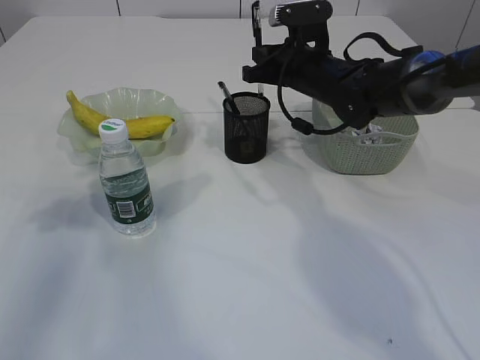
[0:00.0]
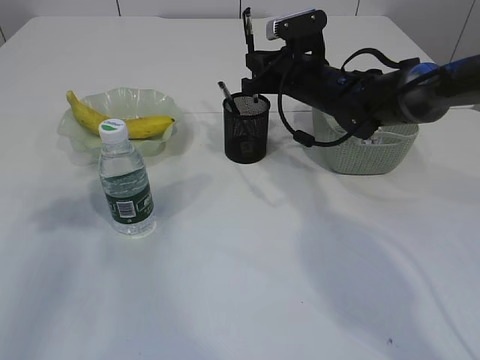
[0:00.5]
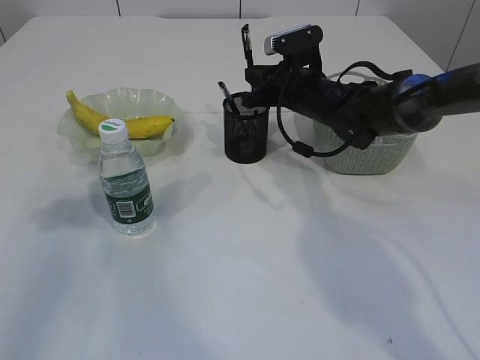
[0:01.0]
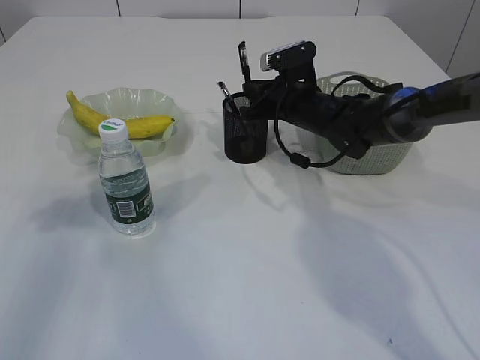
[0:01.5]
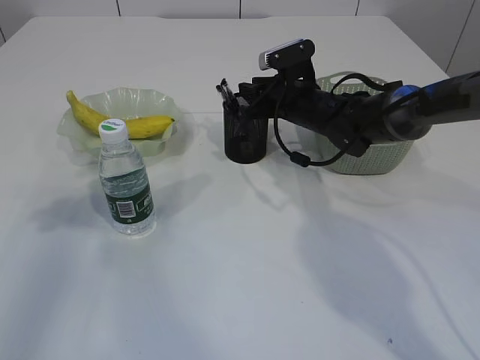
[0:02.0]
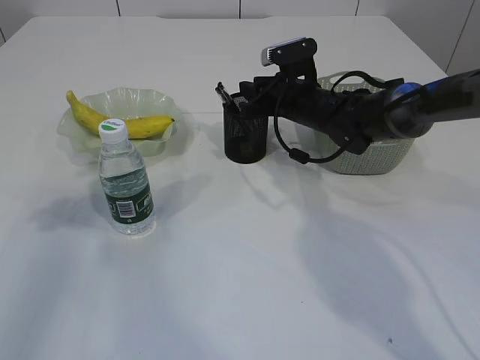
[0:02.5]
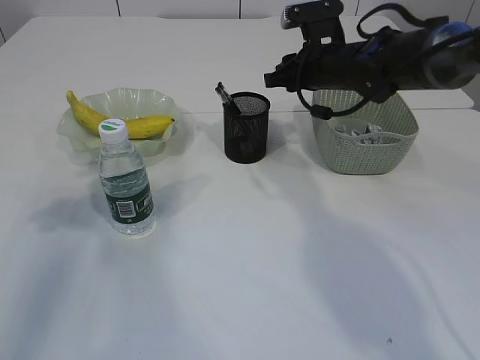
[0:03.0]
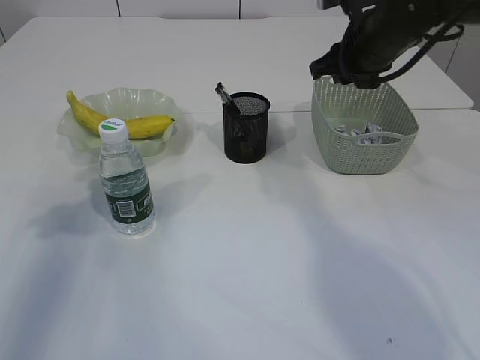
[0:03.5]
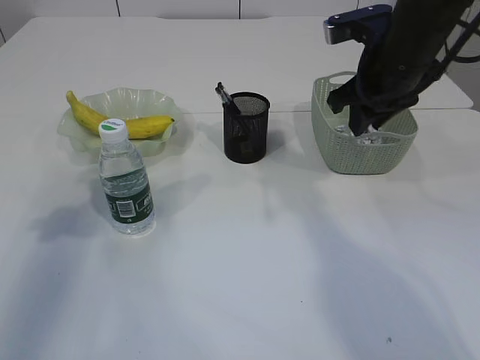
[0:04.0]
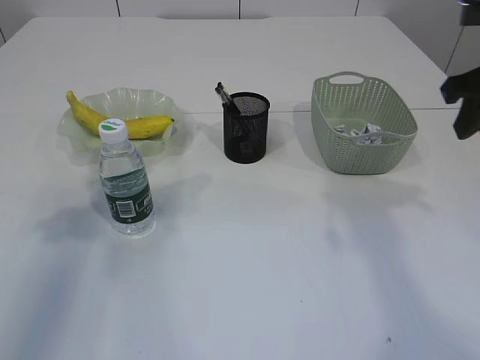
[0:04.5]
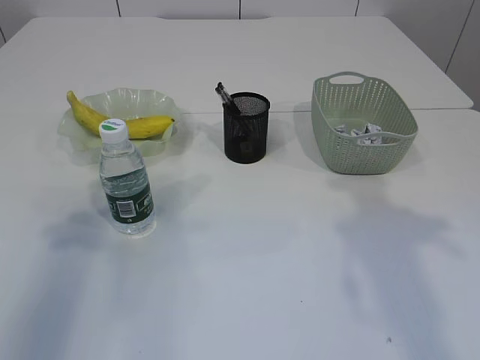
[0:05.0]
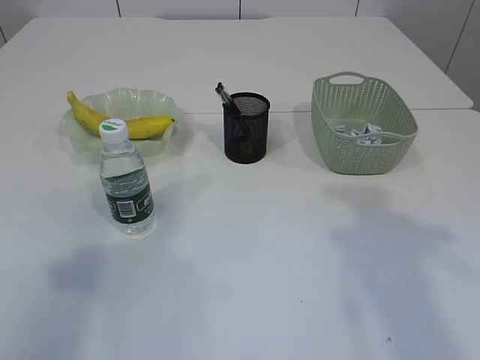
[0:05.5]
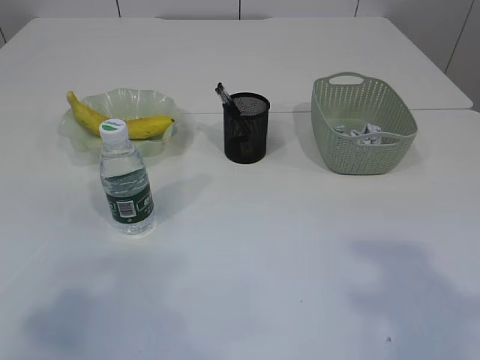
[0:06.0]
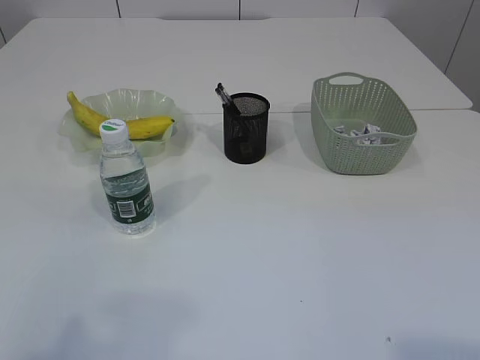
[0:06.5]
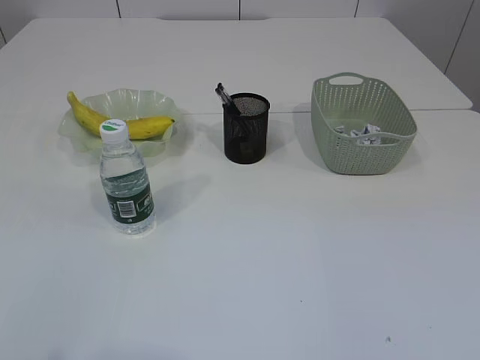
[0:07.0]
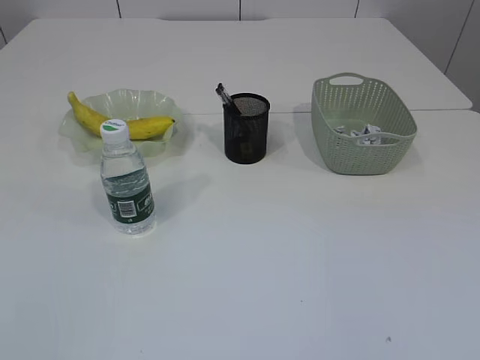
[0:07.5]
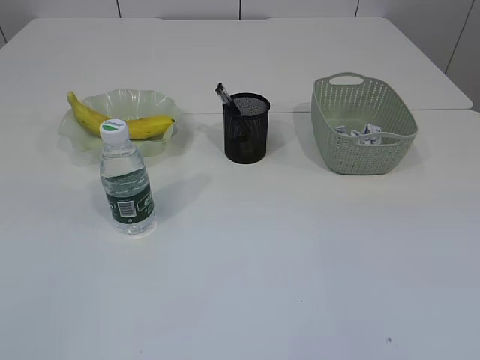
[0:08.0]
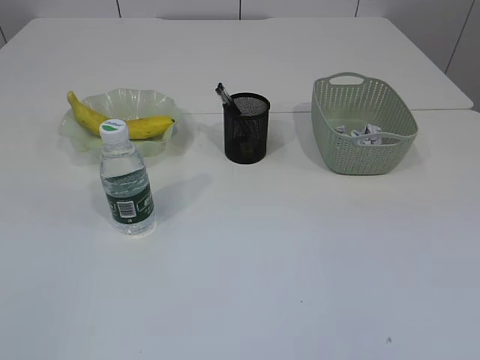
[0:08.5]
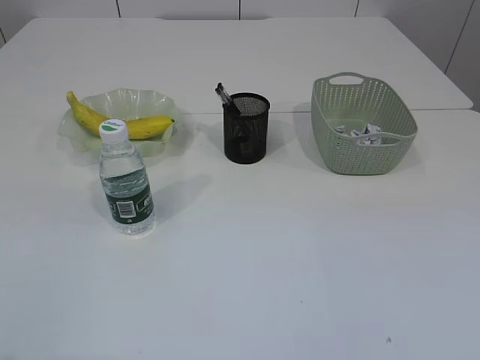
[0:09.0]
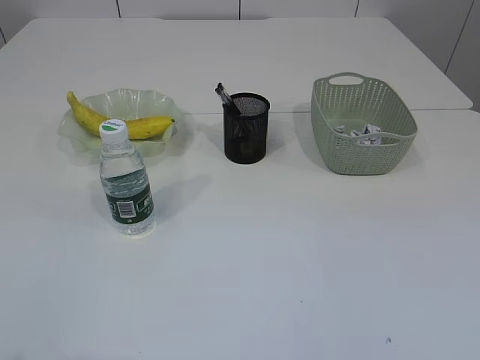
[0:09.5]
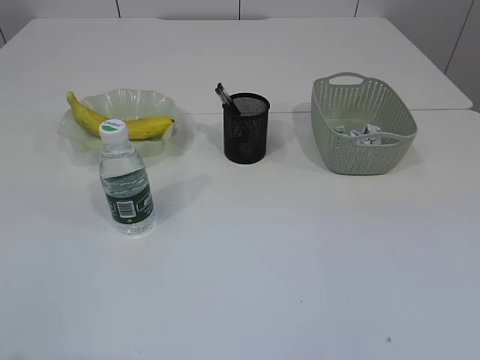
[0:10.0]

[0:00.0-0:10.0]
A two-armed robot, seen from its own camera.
Step, 0:00.0 to 0:03.0: Place the pen into the pen holder.
0:00.0 to 0:02.0: The right gripper moves downward, some 5 cm, and opens.
0:02.0 to 0:04.0: The right gripper heads upward, backward and to the right, covering about 20 cm.
0:04.0 to 0:06.0: The grippers both shift backward by about 25 cm.
0:06.0 to 0:08.0: The left gripper travels backward by roughly 10 cm.

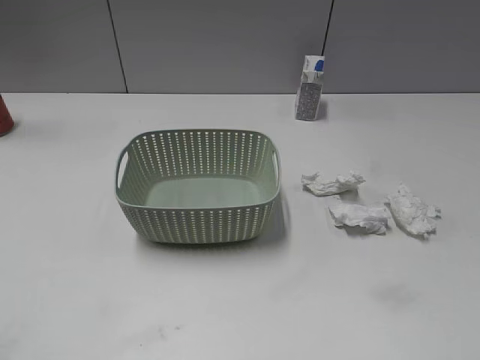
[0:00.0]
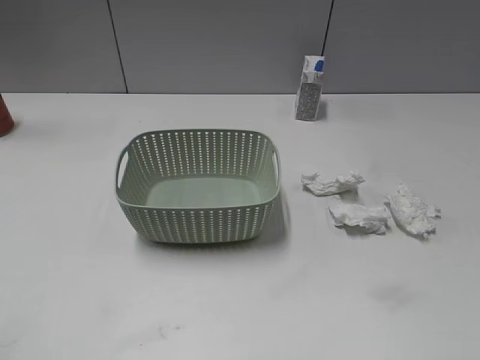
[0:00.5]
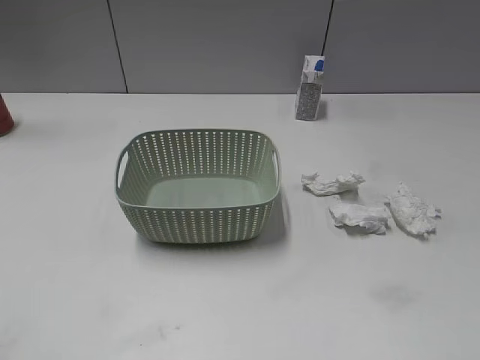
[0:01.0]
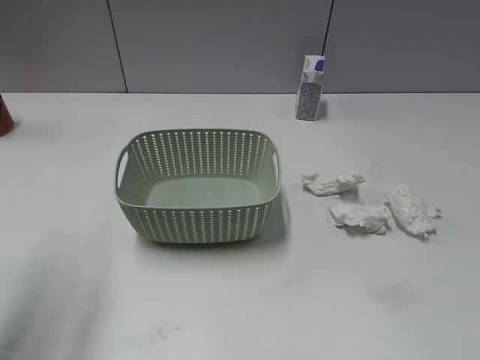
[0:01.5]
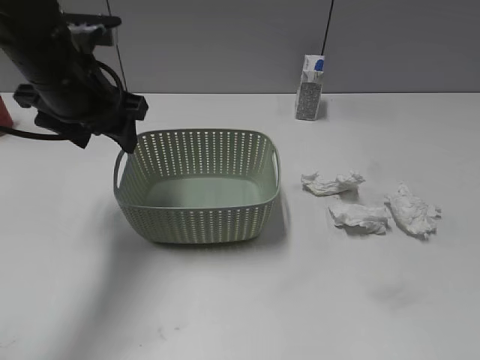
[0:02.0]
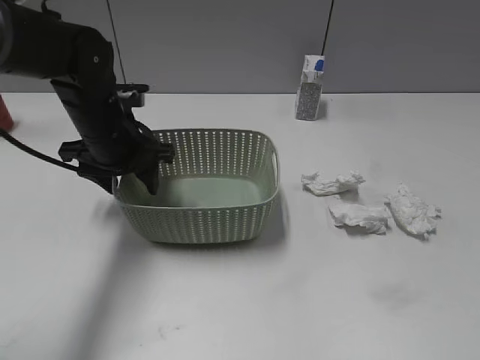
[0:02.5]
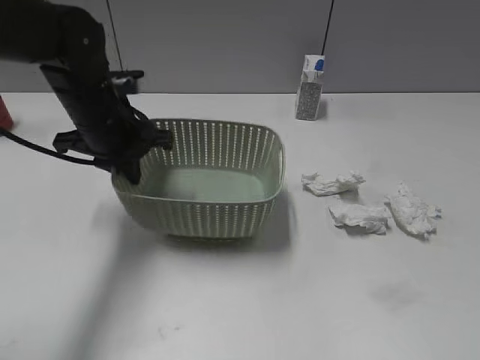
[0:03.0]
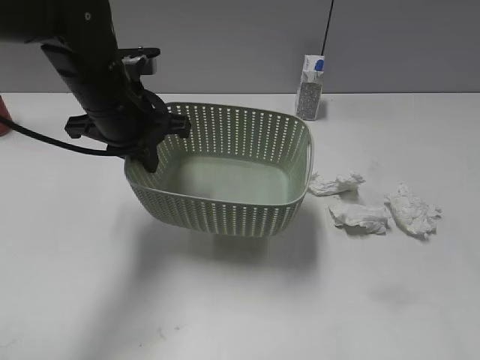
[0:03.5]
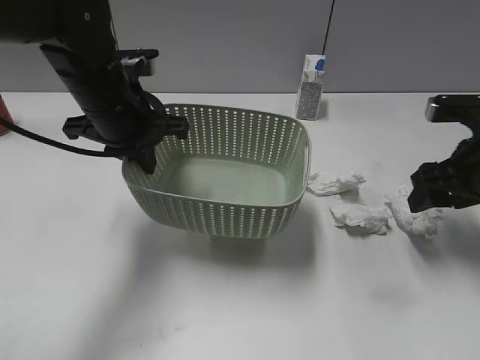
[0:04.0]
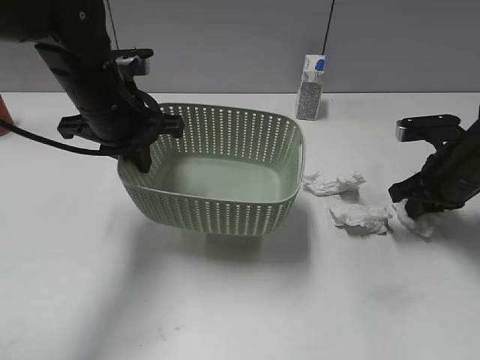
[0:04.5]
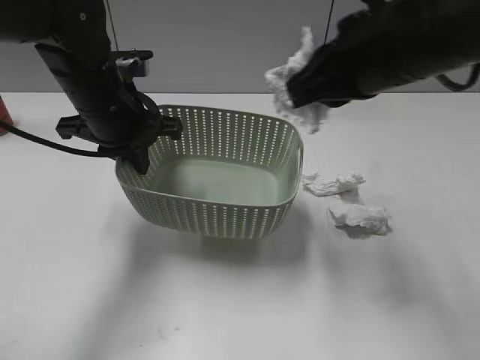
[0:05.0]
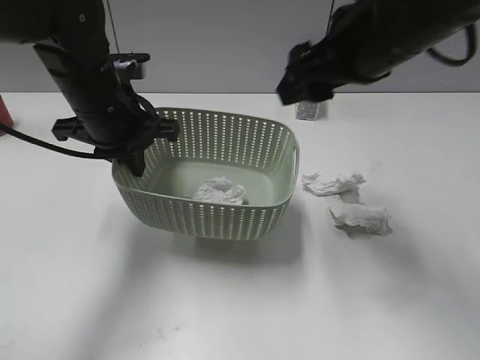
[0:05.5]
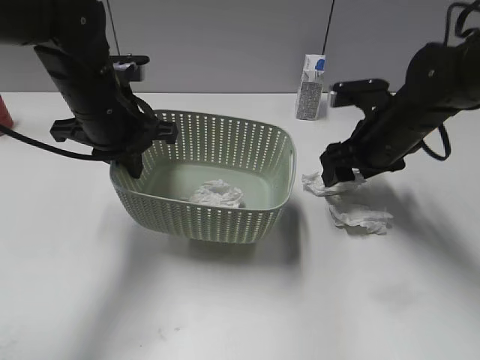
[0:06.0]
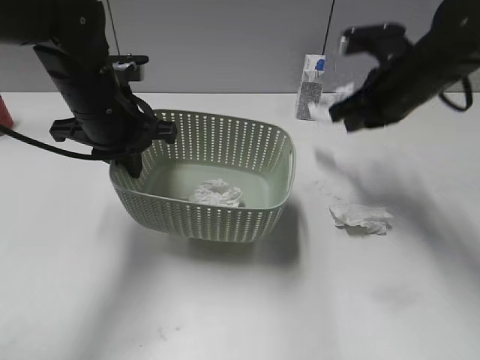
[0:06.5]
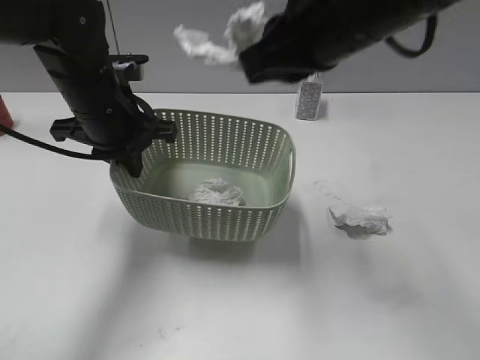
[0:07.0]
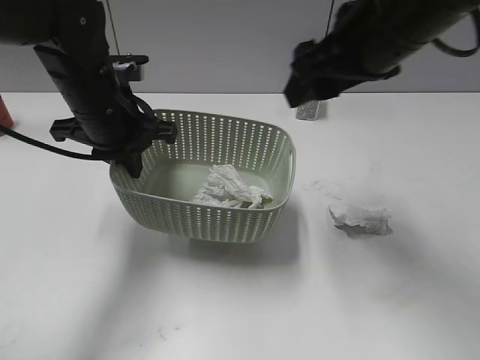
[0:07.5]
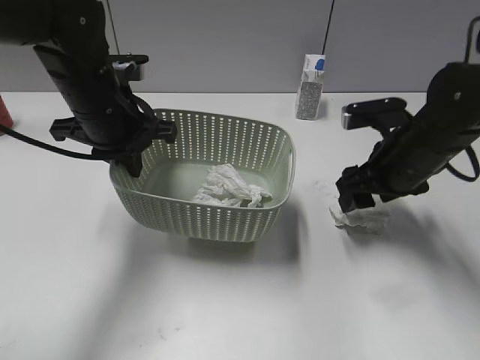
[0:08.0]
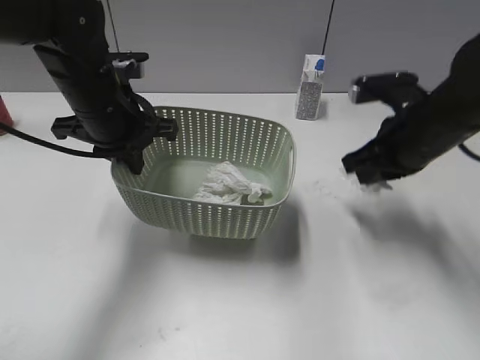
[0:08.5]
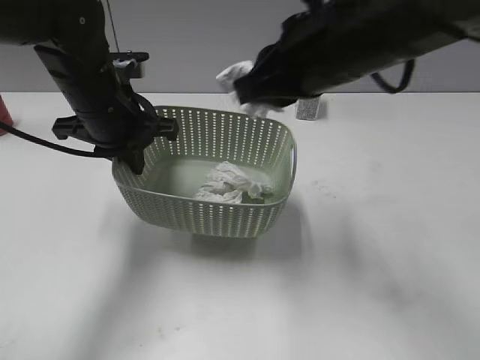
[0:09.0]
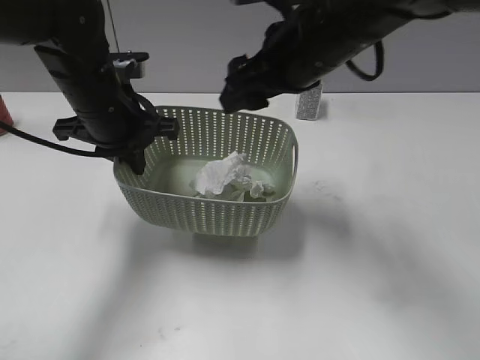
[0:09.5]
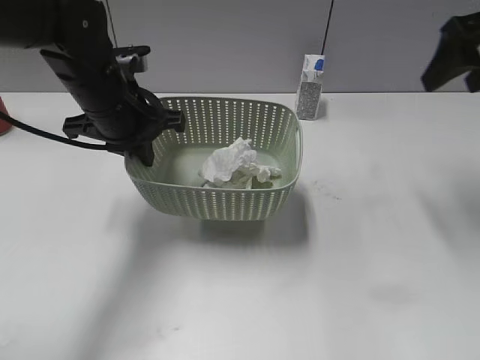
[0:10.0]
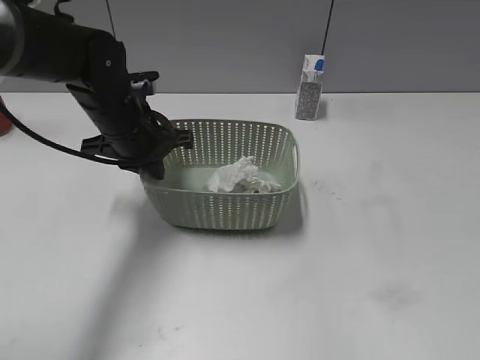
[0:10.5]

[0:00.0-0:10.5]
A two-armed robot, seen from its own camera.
Step, 0:01.5 to 0:03.0: Grasp the basket with left gripper.
Step, 0:03.5 to 0:04.5: Grasp the waste paper with right gripper.
Step, 0:05.5 to 0:06.0: Grasp the waste paper with right gripper.
Step, 0:06.5 to 0:07.0: Place the waste paper in the basket with right gripper.
Step, 0:07.5 to 0:08.0: Grasp the waste paper with right gripper.
Step, 0:08.5 to 0:09.5: Place the waste paper in the basket with right gripper.
0:02.0 to 0:04.0: The right gripper shifts roughly 30 cm forward. The left gripper closes its fingers.
0:04.0 to 0:06.5: The right gripper swings up and down, approximately 20 cm each way, with 3 reversals, and closes.
0:06.5 to 0:08.5: The right gripper shifts some 5 cm backward, reaches approximately 15 cm upward, then returns, and opens and closes again.
0:08.5 to 0:10.5: The right gripper heads upward and to the right, covering some 25 cm, and opens up; the left gripper changes place by roughly 5 cm.

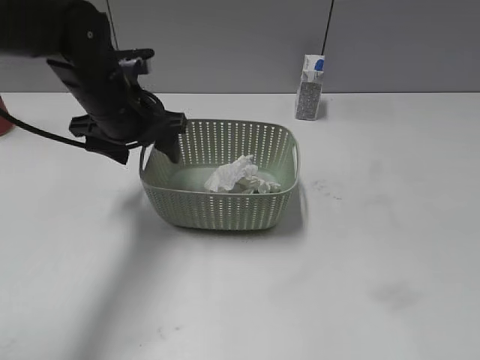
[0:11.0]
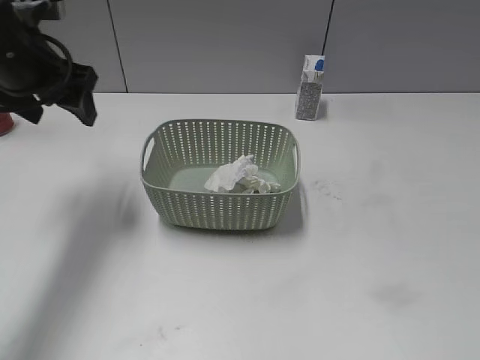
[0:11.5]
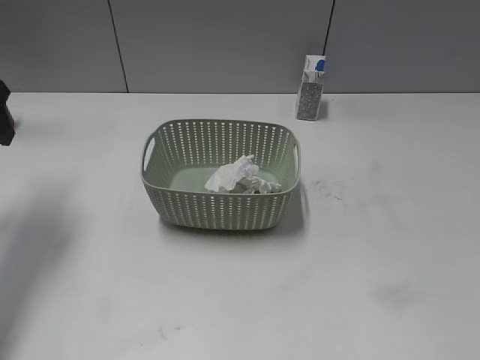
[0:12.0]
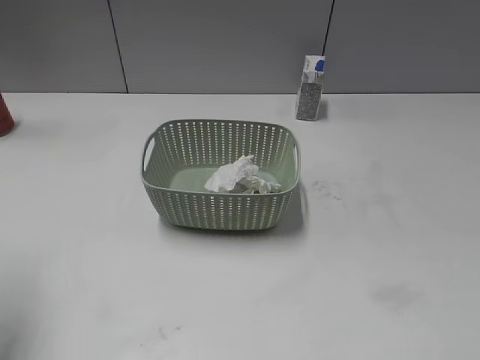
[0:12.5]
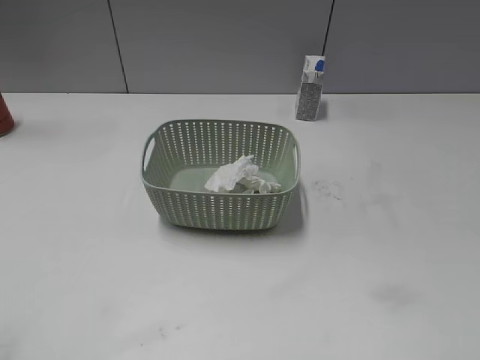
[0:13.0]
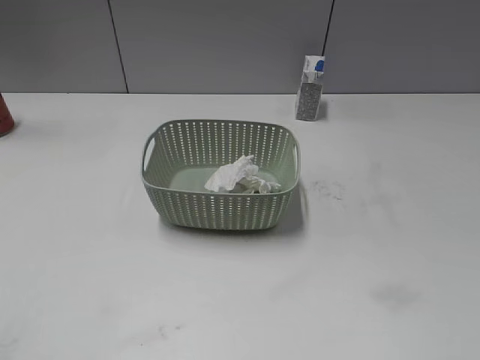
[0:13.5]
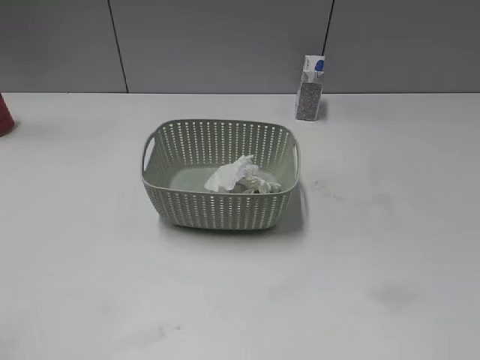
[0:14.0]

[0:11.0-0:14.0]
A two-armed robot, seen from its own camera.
0:11.0 to 0:12.5: The left gripper is displaced to the left, backward and upward by approximately 25 cm, while the right gripper shifts approximately 15 cm backward and downward.
0:12.5 to 0:14.0: The left gripper shifts roughly 20 cm backward.
